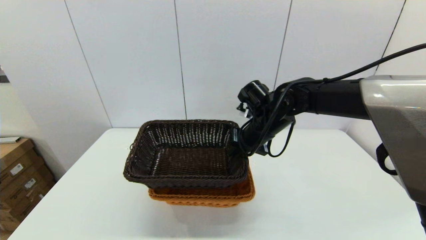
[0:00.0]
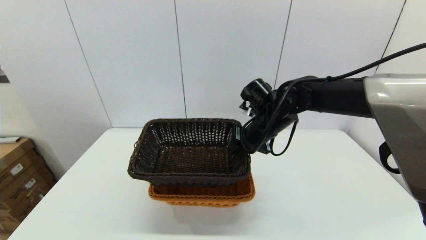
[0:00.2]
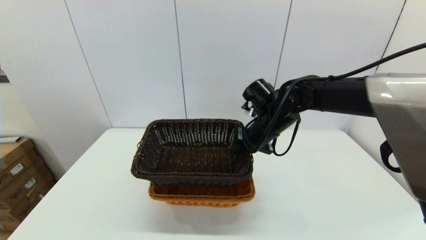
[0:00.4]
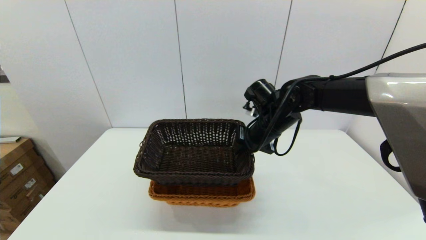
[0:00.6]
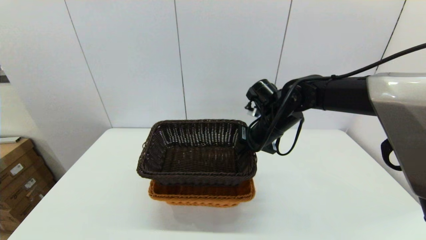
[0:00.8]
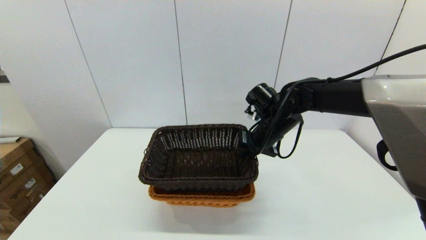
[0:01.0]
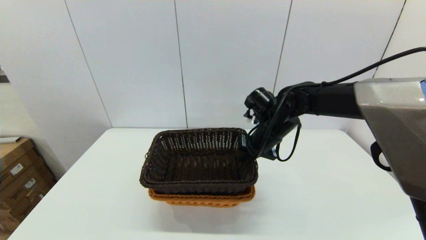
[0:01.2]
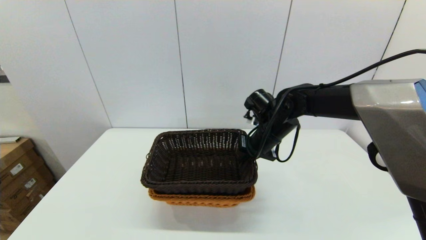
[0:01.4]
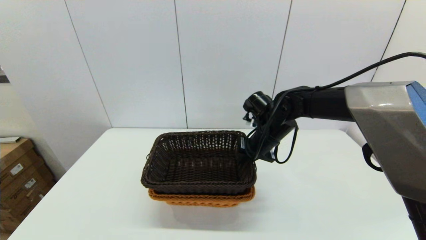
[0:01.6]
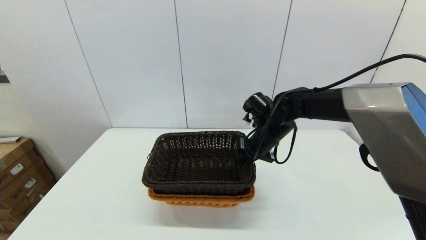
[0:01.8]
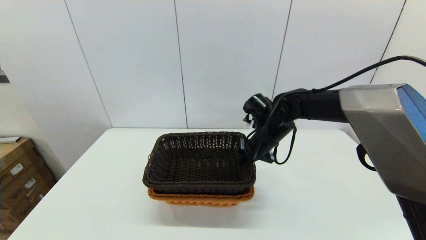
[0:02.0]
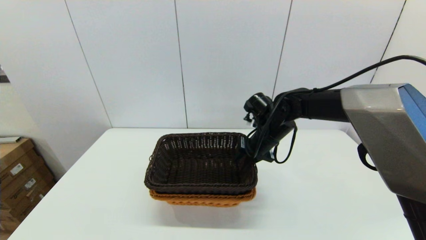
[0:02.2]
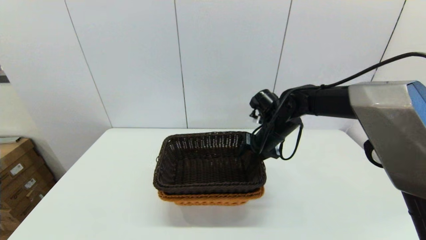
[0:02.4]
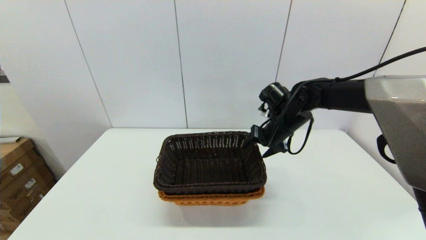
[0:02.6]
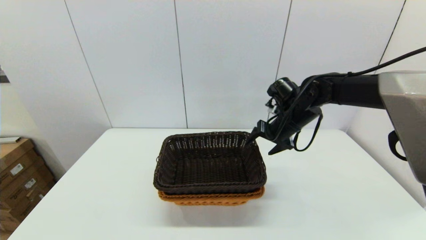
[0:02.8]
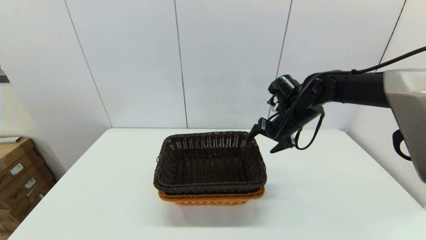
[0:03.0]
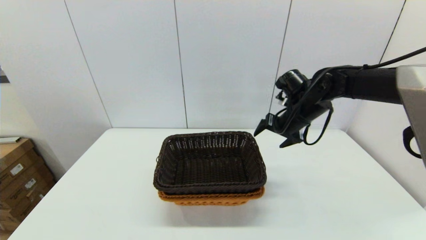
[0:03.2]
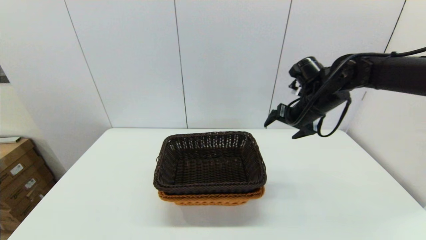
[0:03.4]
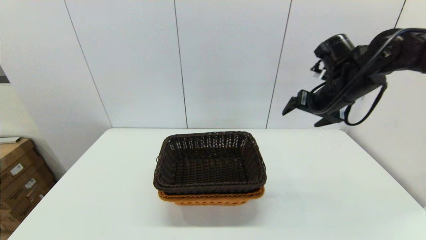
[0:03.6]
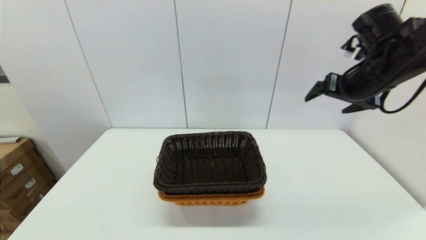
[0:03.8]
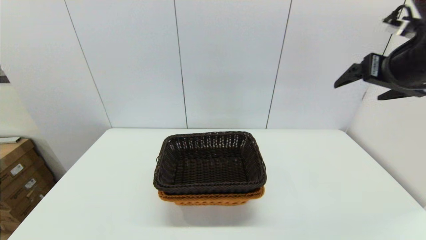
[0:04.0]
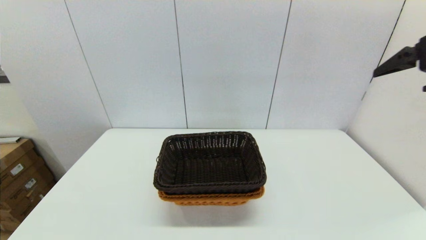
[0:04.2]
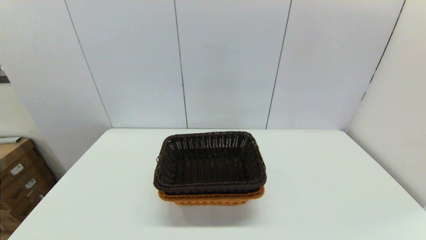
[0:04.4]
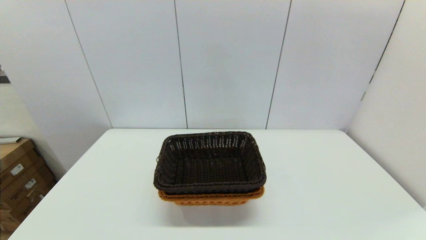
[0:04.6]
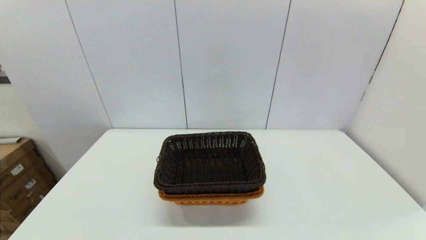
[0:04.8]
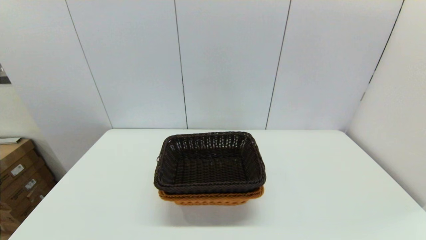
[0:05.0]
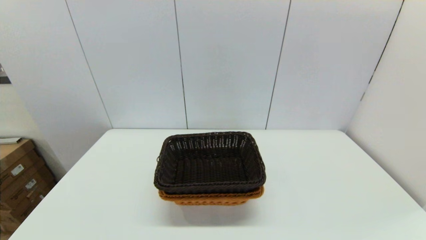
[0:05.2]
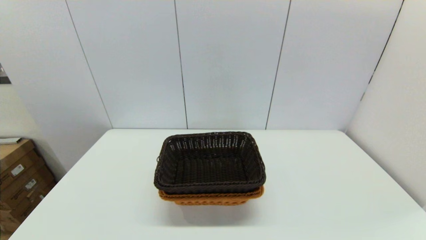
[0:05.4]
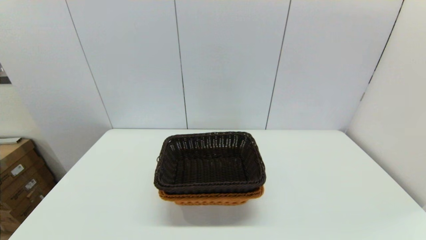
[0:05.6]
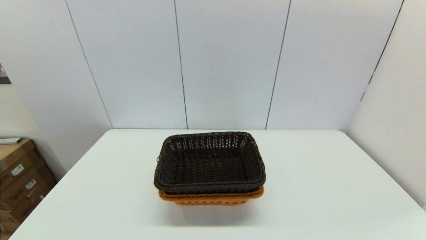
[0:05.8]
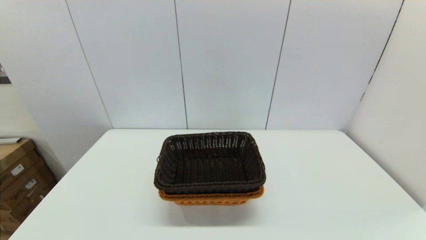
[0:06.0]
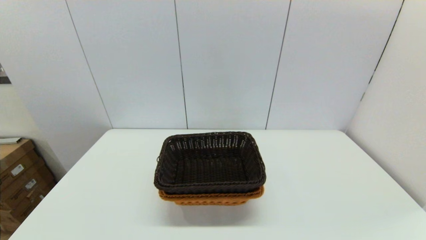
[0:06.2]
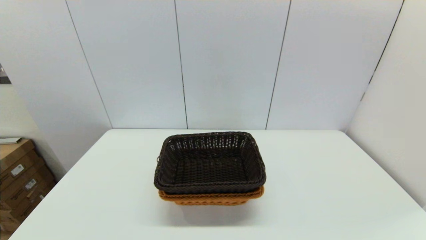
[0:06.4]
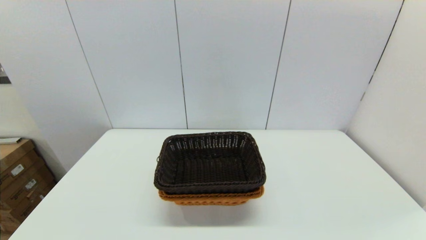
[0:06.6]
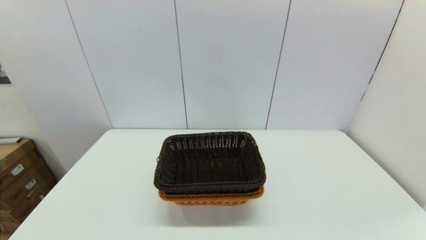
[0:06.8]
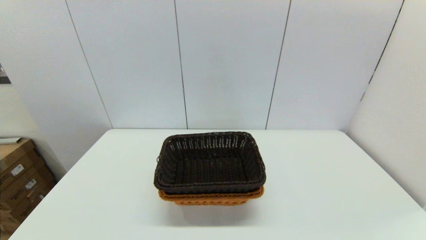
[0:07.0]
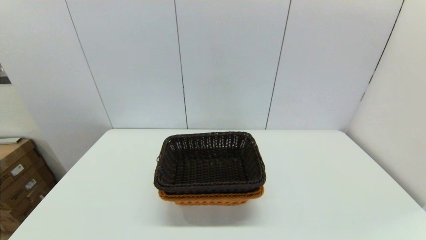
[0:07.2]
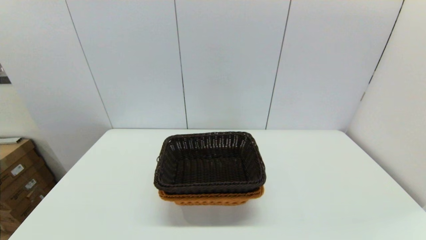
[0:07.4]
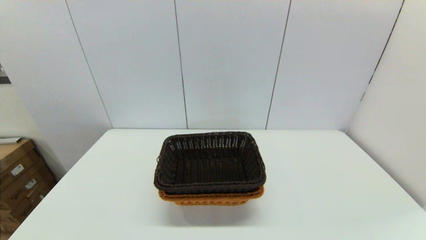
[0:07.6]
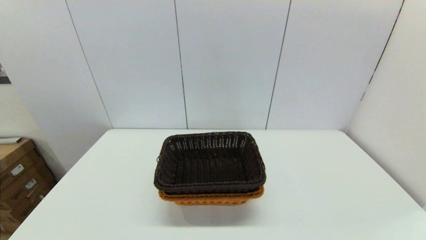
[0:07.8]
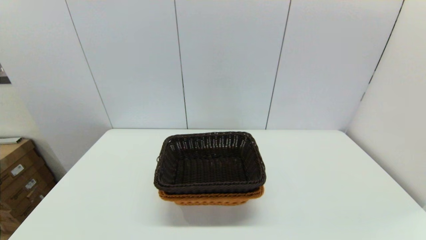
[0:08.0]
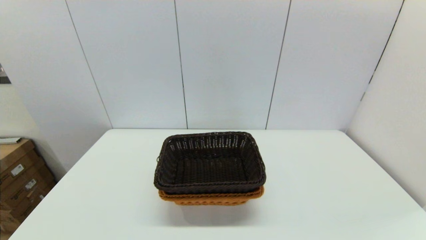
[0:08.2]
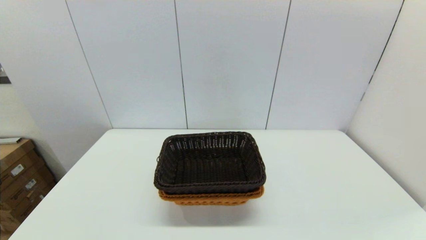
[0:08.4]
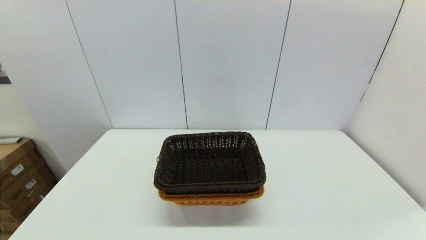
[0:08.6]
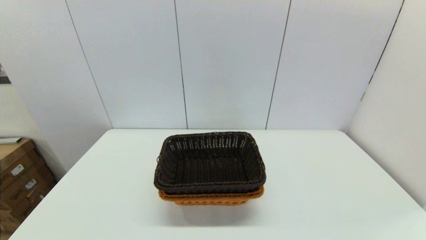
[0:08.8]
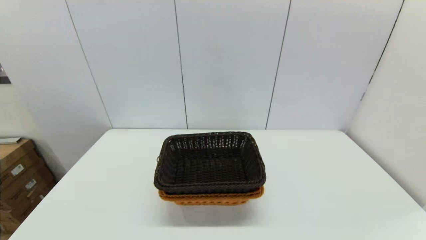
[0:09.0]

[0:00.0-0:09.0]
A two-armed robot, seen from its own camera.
Task of the whole recording: stack a basket on top of another basket.
Step, 0:00.0 to 0:03.0: Place the dark basket into the light color basket with the right gripper.
0:00.0 to 0:01.6: The grippers stay close to where they were, moving slightly.
0:01.6 to 0:03.0: The right gripper moves to the right, roughly 5 cm, and opens its fingers.
0:03.0 to 0:04.4: The right gripper travels backward, upward and to the right by approximately 40 cm.
0:07.6 to 0:09.0: The two grippers keep their place.
